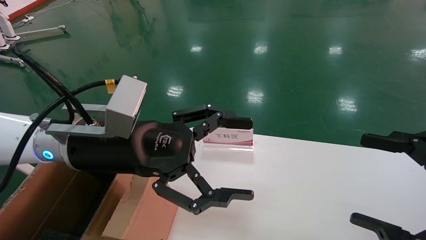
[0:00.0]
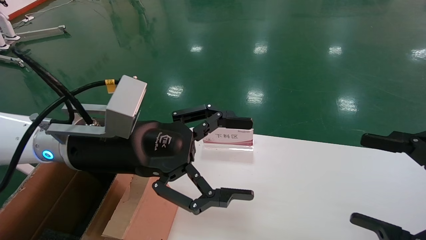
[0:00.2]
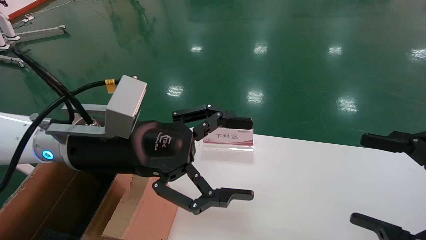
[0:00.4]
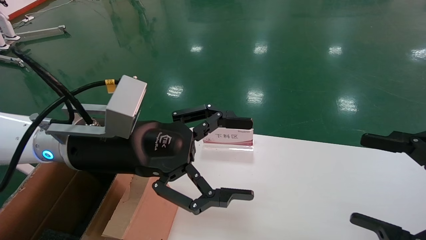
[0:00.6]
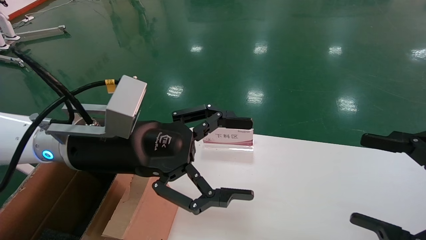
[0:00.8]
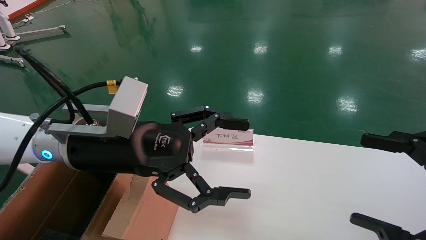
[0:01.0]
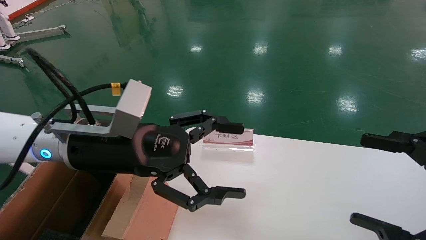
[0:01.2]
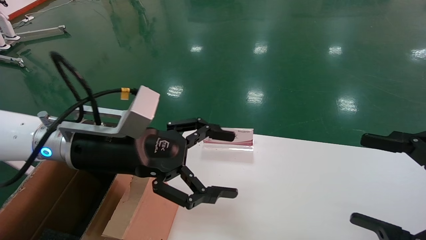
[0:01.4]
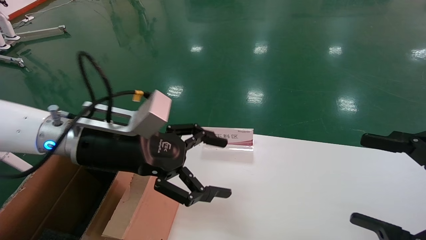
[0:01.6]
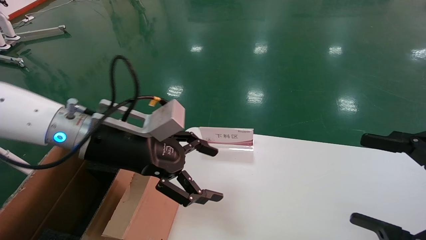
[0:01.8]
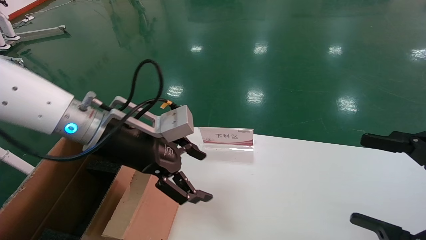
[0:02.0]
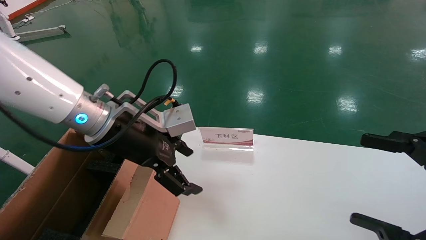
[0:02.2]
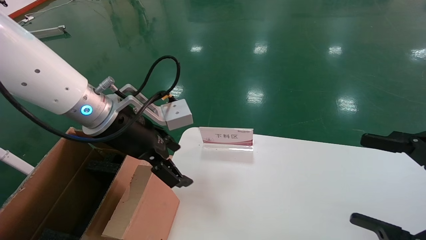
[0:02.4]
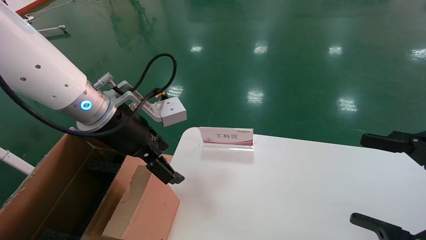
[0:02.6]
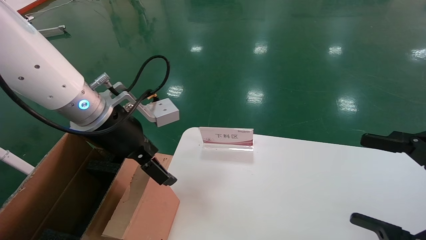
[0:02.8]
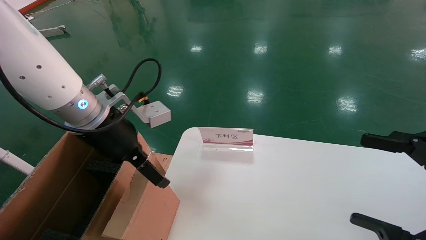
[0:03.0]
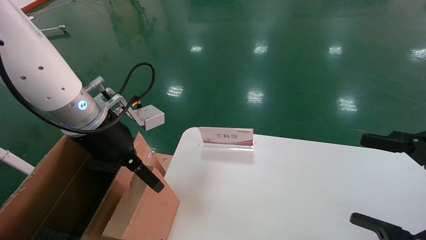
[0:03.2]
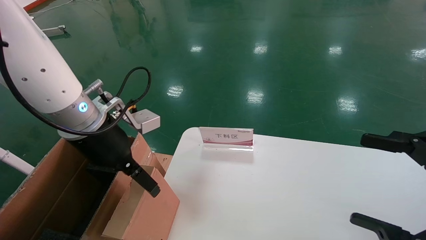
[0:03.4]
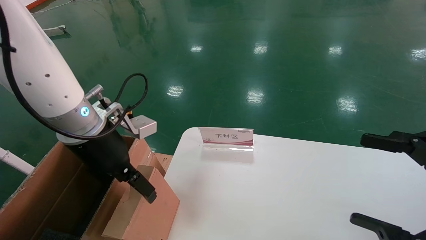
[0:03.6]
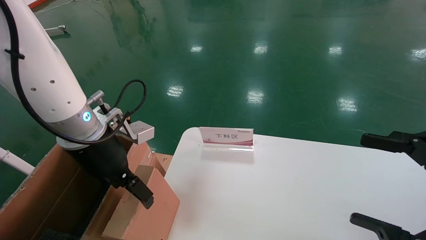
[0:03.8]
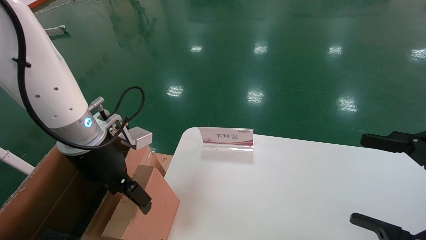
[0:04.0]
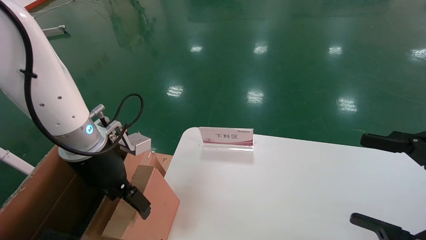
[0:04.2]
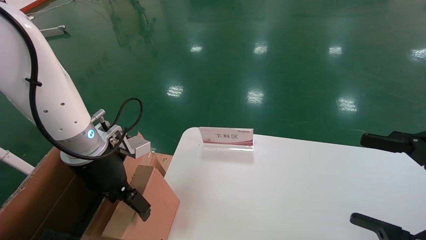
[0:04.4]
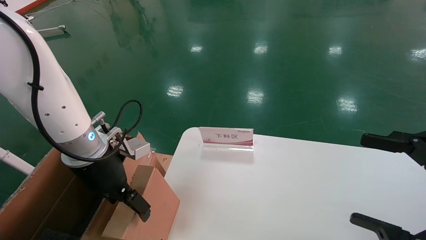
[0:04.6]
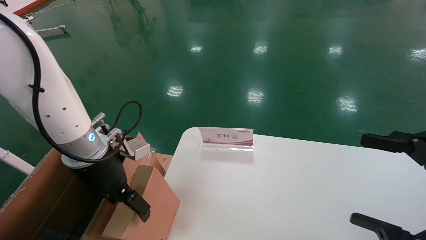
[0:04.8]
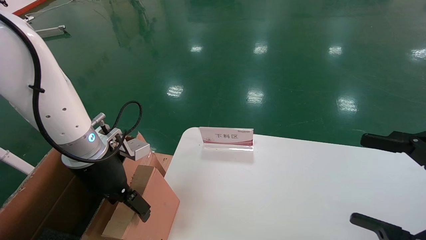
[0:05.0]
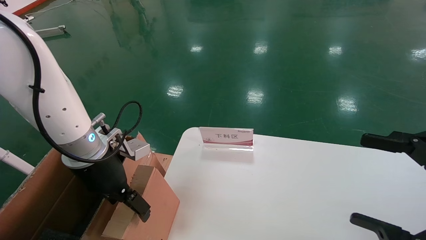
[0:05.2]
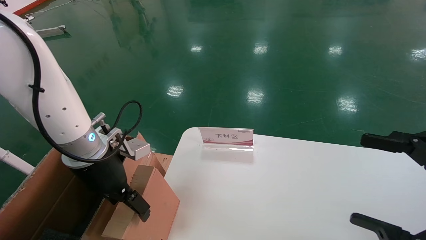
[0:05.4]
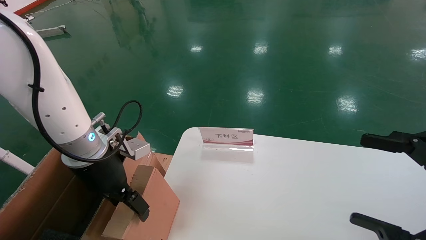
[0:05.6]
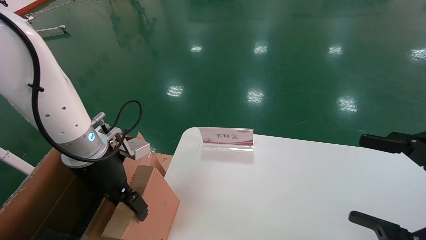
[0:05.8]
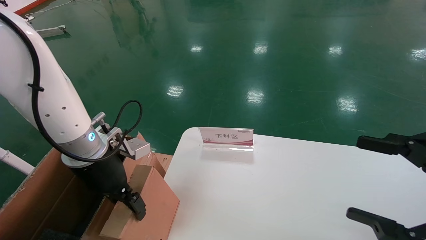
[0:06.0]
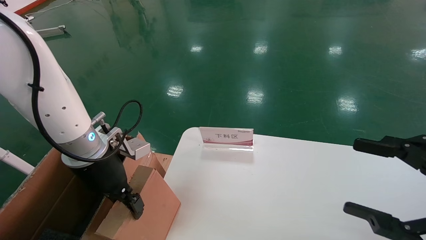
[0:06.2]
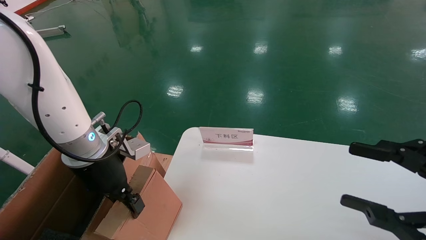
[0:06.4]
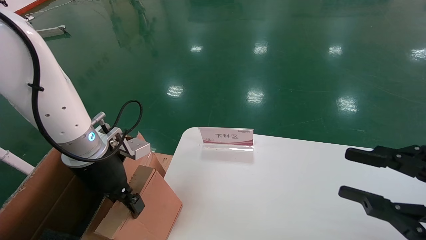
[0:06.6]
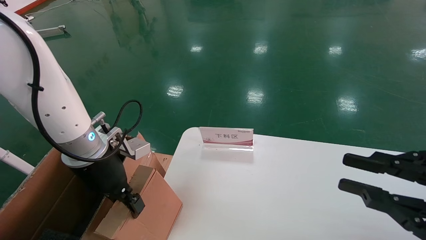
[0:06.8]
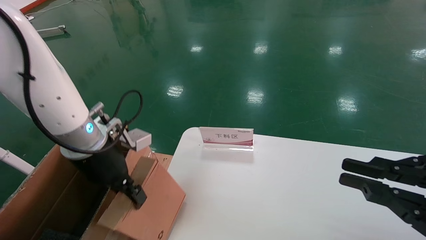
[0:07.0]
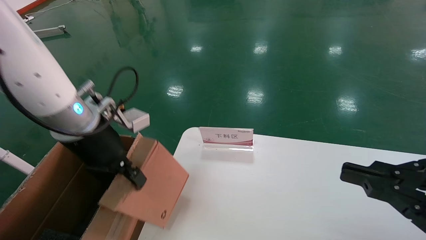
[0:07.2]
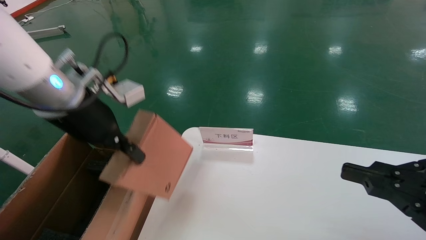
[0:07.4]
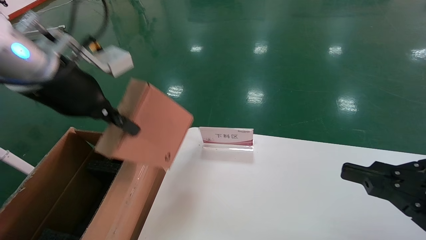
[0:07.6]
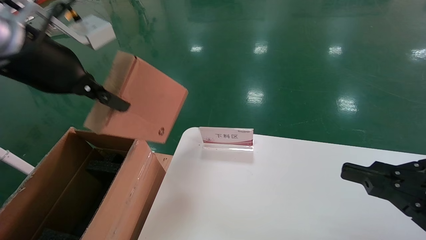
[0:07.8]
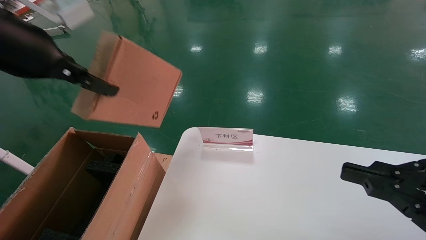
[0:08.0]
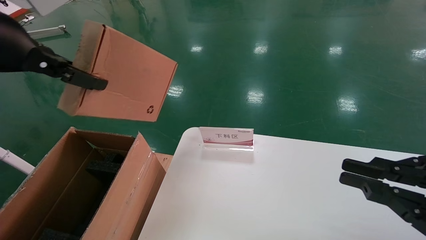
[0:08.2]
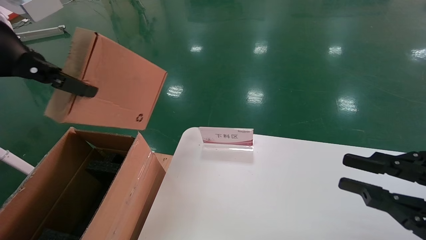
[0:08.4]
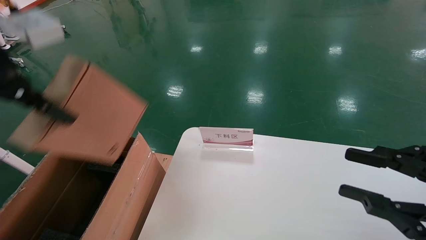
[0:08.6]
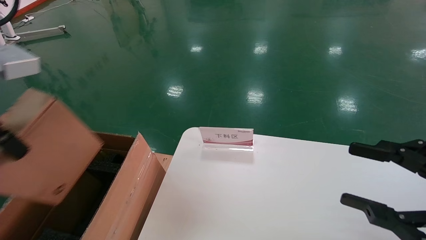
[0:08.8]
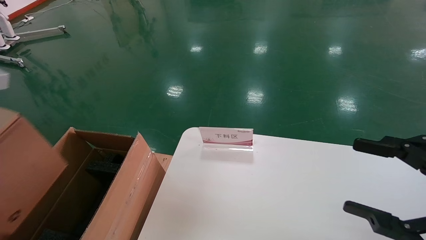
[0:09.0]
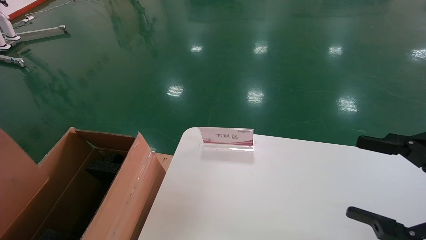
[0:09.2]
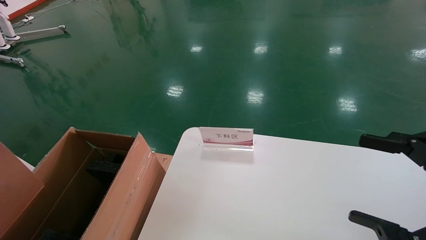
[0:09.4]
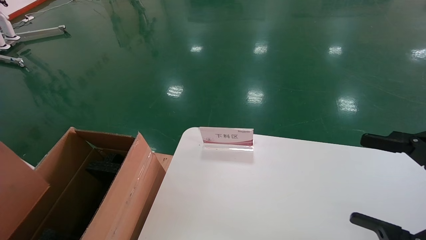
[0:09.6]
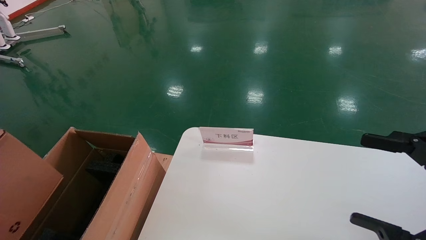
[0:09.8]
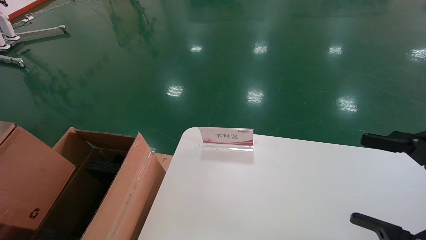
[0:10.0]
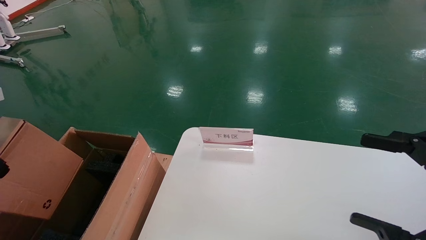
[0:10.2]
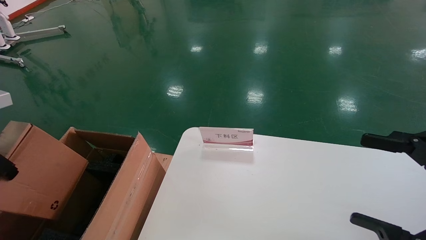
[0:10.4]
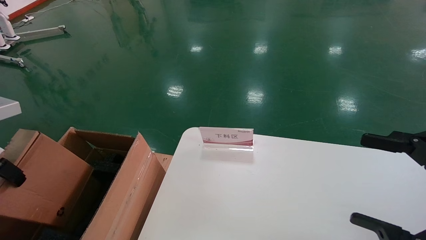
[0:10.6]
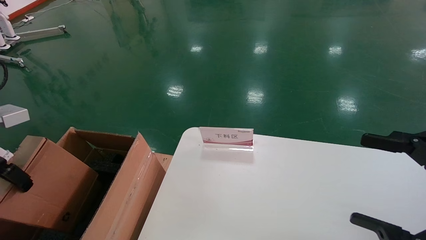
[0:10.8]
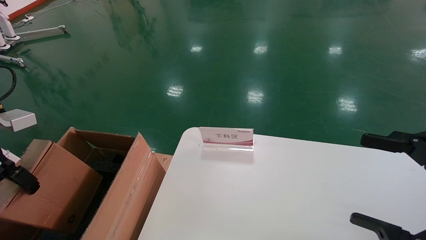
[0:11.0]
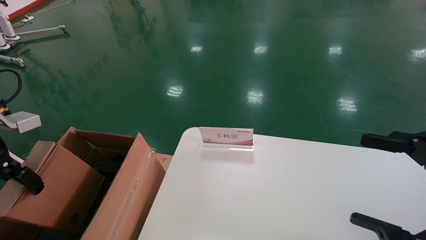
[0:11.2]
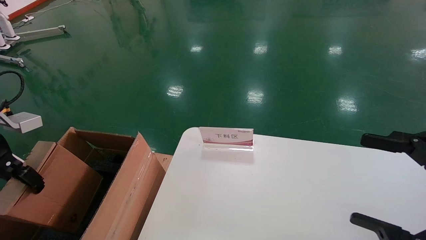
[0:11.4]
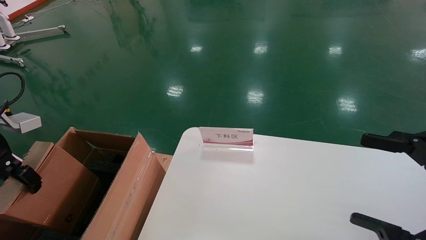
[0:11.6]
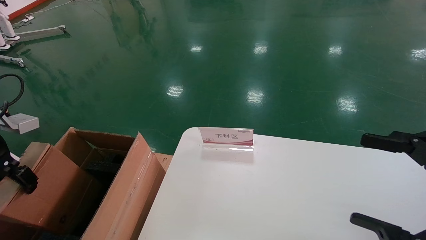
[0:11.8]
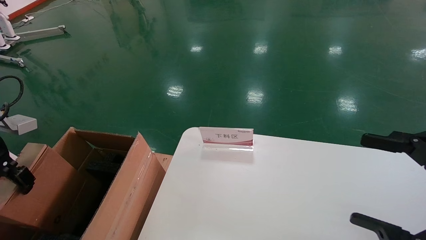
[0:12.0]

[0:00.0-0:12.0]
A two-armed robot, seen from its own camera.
Task of the whole recording: pick up the small cardboard box and load it into the large cardboard box.
Step, 0:02.8 to 0:08.6: Pick up the mouse and power cord box.
0:03.0 to 0:04.4: The left gripper shifts roughly 5 cm downward.
0:04.4 to 0:06.0: The two grippers keep their place.
0:06.0 to 0:07.6: The left gripper goes approximately 15 cm upward, and closes up. The right gripper closes its fingers.
0:07.6 to 0:09.0: The left gripper is displaced backward and to the left by some 10 cm, while the right gripper opens its fingers.
0:09.0 to 0:10.4: The left gripper shifts some 15 cm to the left and downward; the right gripper opens its fingers.
0:10.4 to 0:12.0: The left gripper travels downward and forward by about 10 cm.

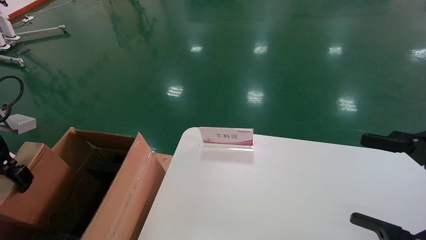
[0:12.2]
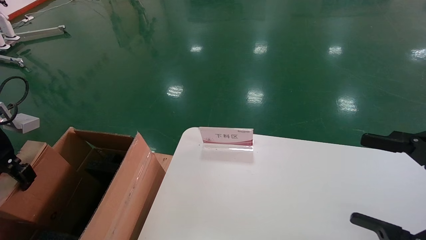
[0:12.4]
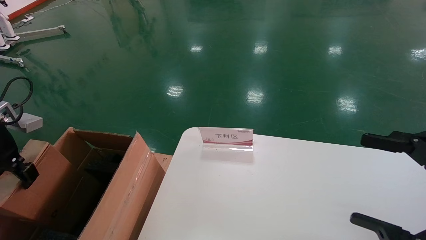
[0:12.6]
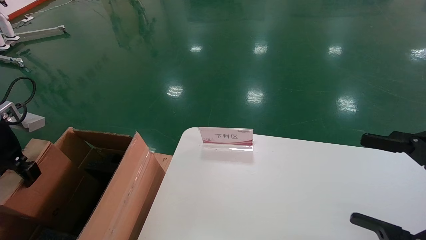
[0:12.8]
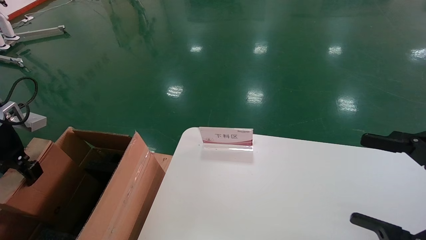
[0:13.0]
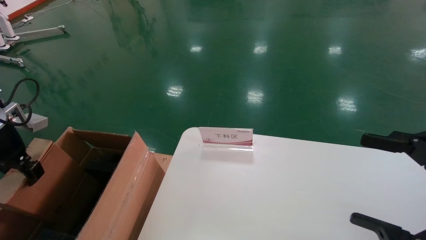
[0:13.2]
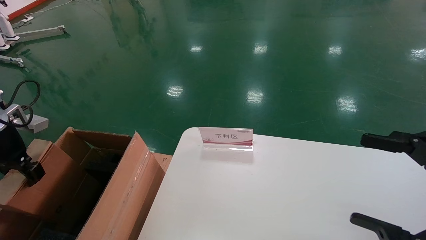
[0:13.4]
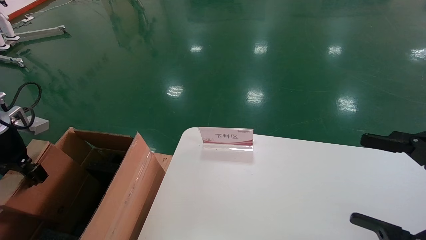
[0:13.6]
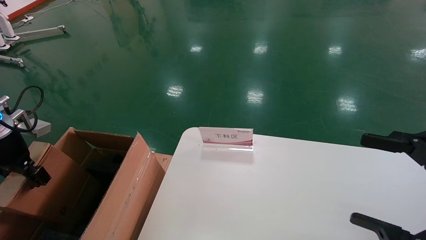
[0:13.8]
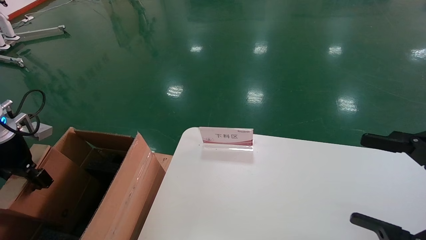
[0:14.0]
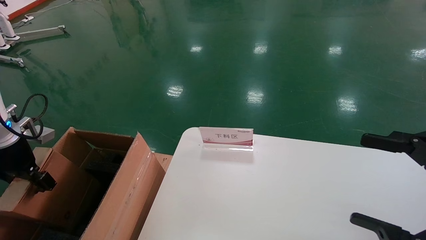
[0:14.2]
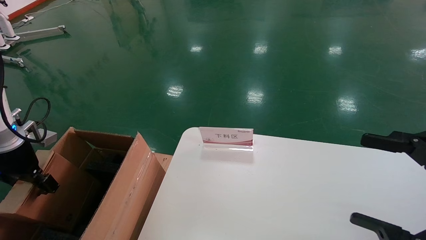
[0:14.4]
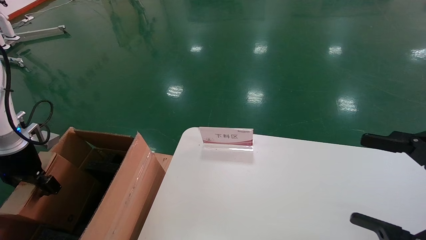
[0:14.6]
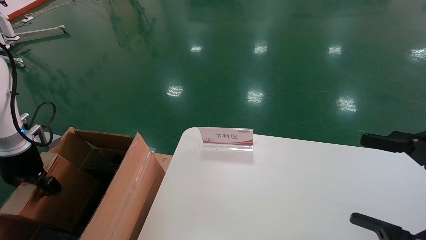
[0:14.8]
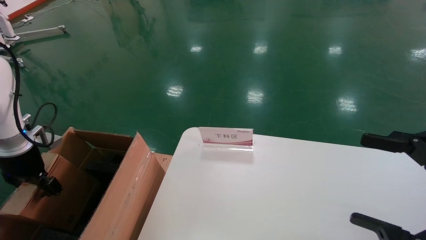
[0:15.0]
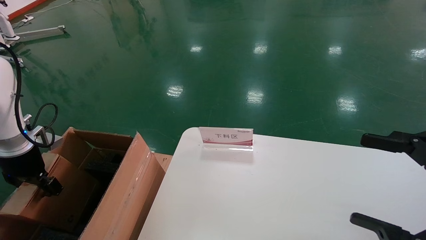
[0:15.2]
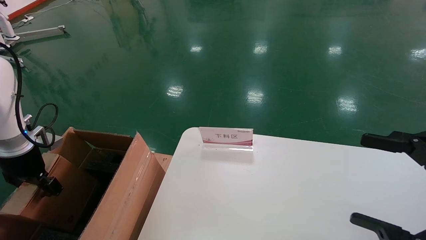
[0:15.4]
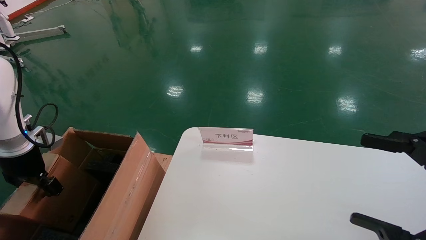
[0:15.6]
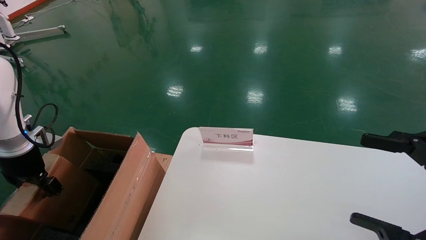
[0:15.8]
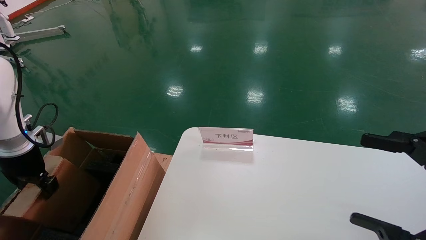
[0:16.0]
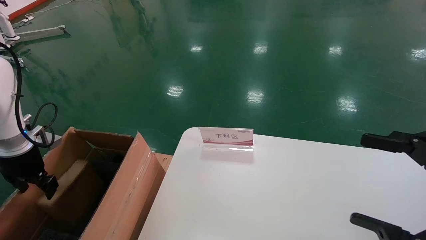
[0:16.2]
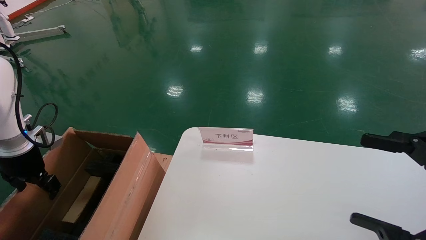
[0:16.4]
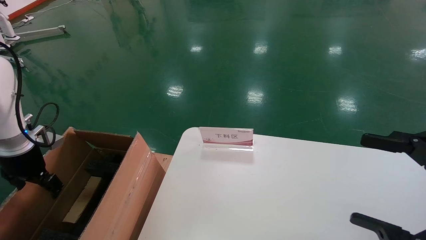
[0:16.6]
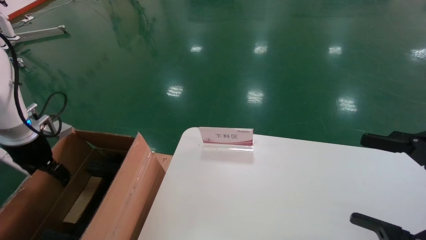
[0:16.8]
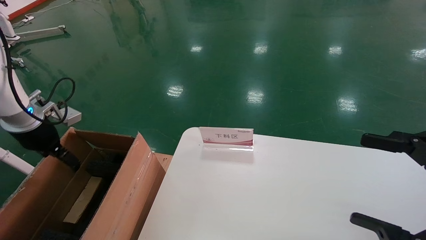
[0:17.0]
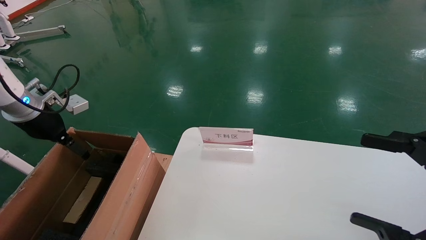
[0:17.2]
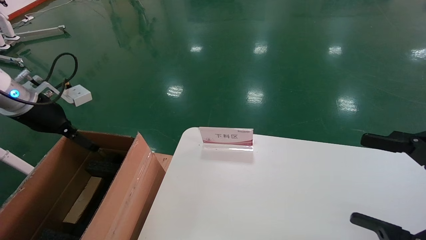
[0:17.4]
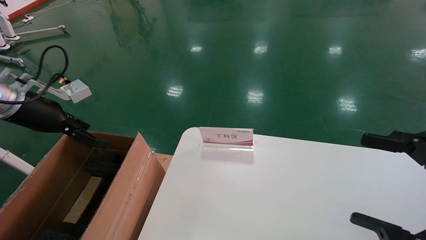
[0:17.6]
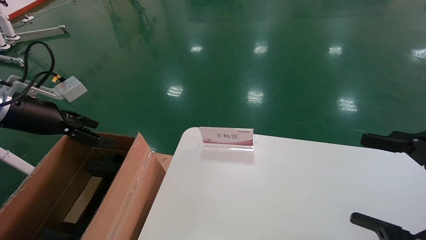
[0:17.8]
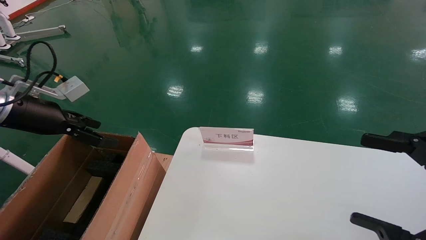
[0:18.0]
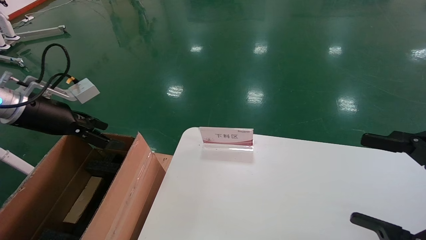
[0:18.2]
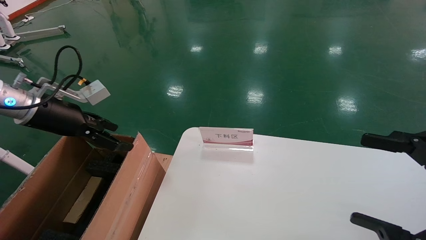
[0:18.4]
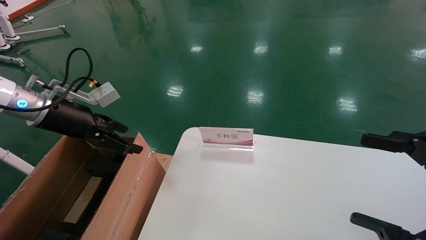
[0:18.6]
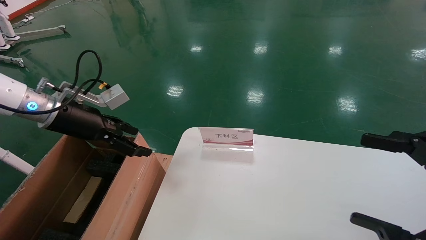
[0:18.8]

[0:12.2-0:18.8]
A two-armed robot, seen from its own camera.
Task of the whole recording: pick up the small cardboard box and load it into the large cardboard box.
Step, 0:12.2 to 0:18.4: Place the mouse and power cord box into the case.
0:12.2 to 0:13.8: The left gripper changes place by about 5 cm.
0:13.8 to 0:15.4: The left gripper is displaced downward by approximately 5 cm.
0:15.4 to 0:17.2: The left gripper goes some 10 cm upward, and opens up.
0:17.2 to 0:18.8: The left gripper goes about 10 cm to the right.
